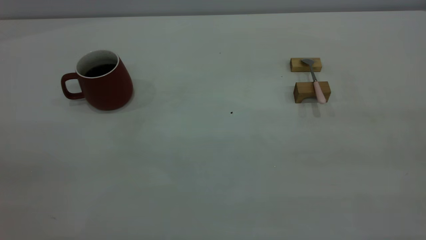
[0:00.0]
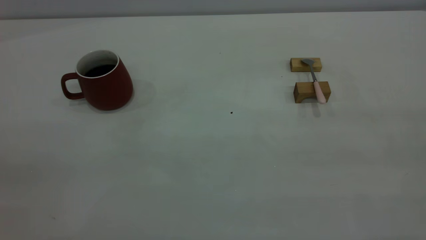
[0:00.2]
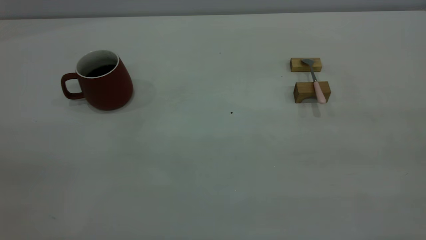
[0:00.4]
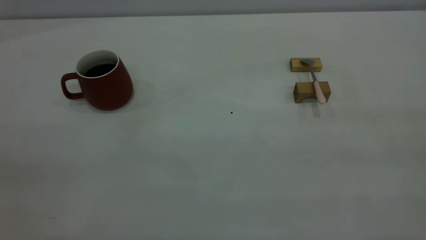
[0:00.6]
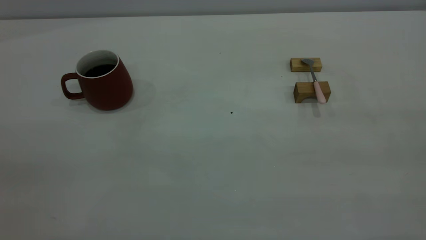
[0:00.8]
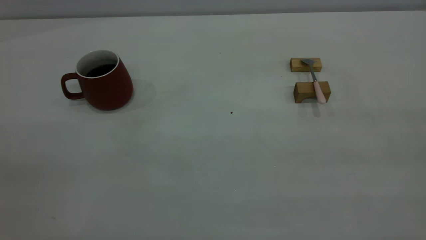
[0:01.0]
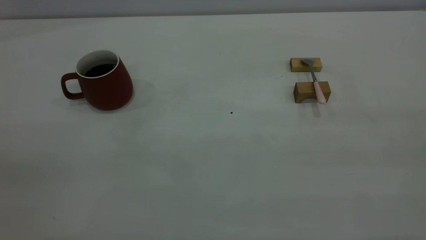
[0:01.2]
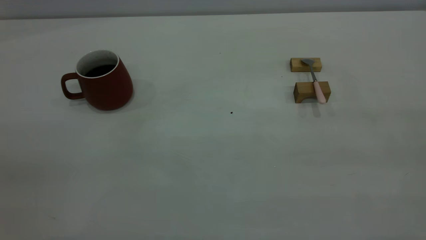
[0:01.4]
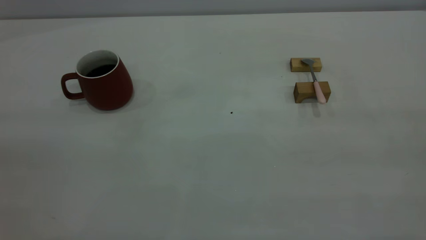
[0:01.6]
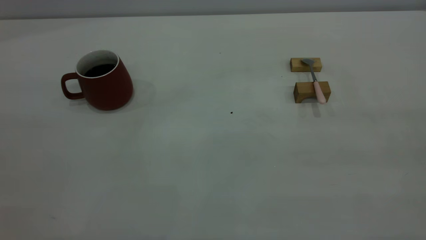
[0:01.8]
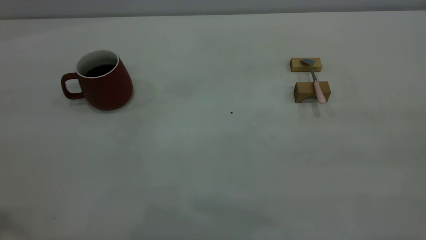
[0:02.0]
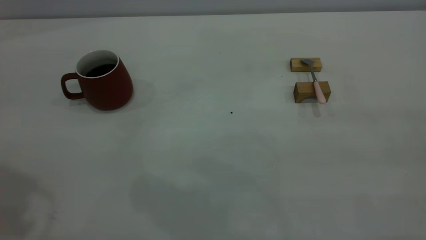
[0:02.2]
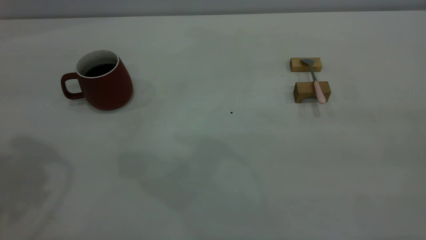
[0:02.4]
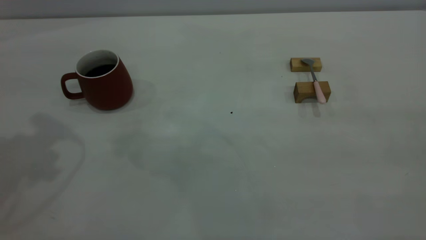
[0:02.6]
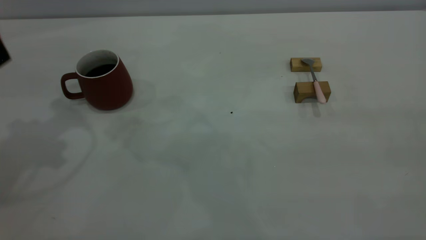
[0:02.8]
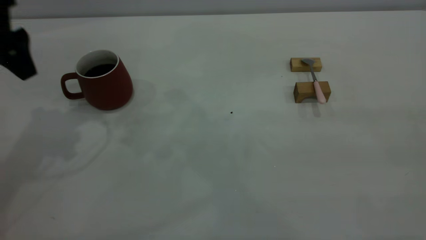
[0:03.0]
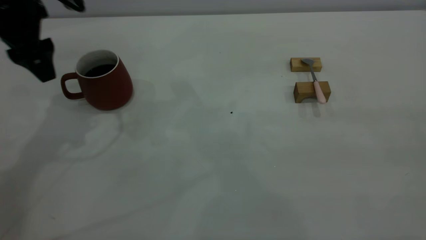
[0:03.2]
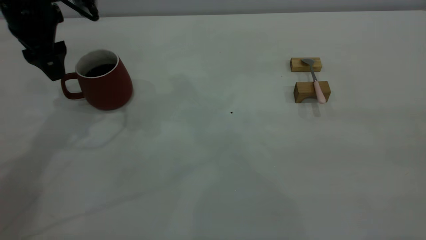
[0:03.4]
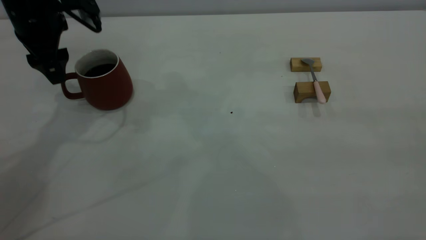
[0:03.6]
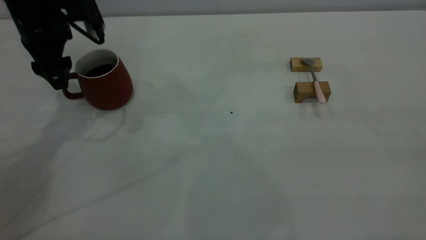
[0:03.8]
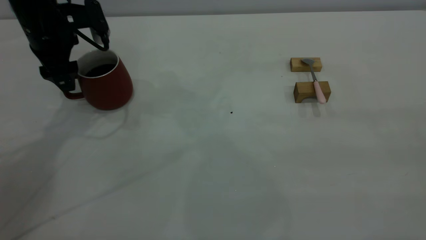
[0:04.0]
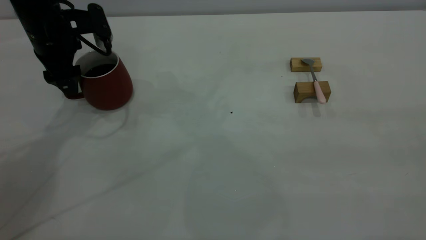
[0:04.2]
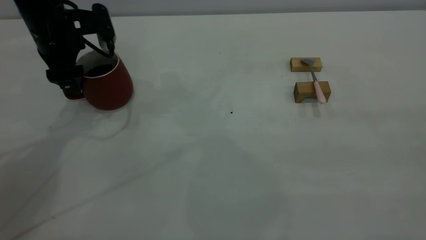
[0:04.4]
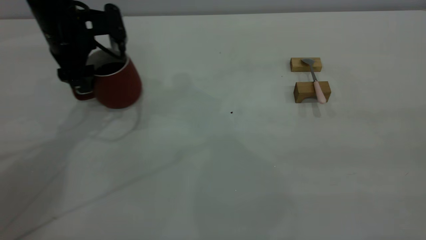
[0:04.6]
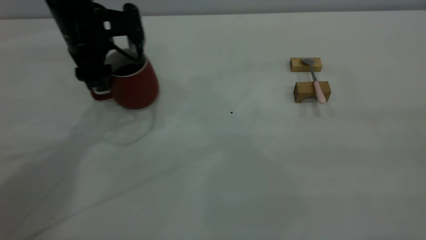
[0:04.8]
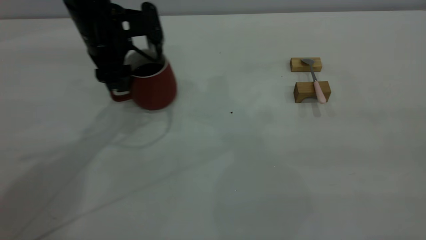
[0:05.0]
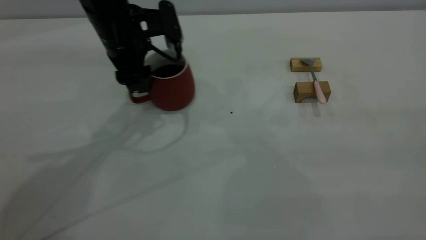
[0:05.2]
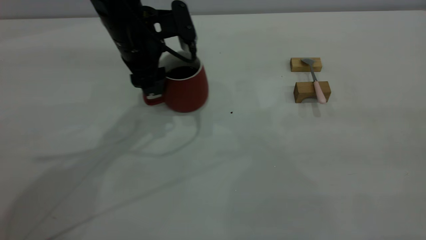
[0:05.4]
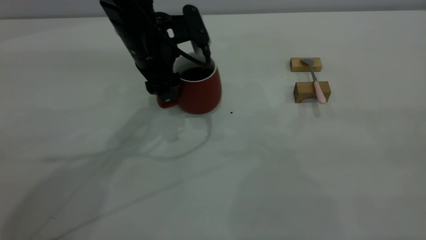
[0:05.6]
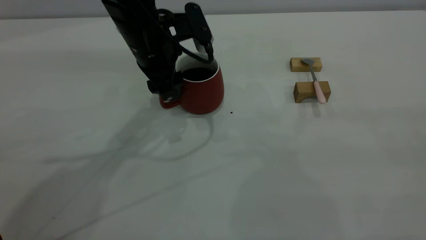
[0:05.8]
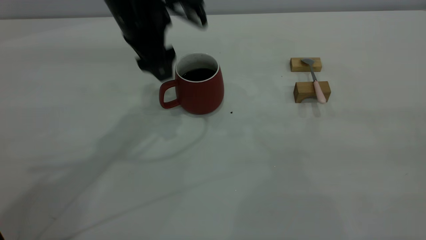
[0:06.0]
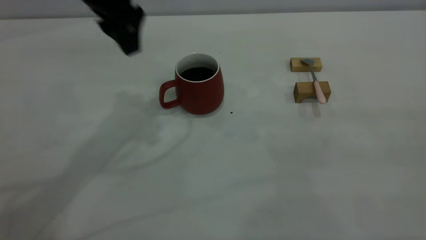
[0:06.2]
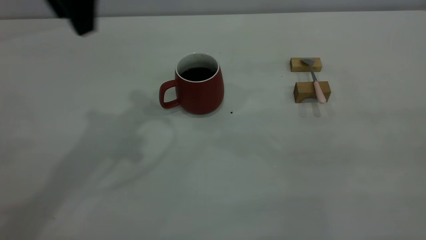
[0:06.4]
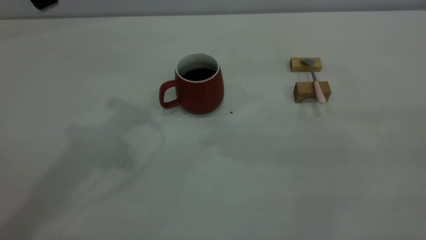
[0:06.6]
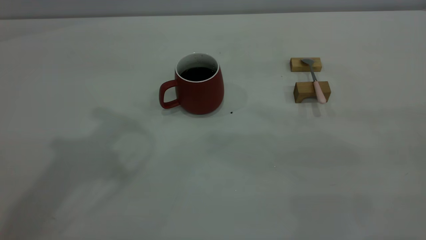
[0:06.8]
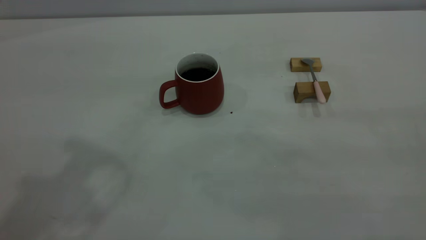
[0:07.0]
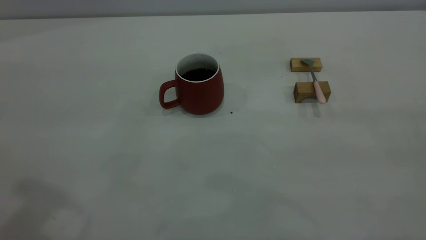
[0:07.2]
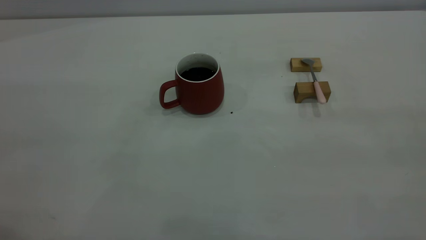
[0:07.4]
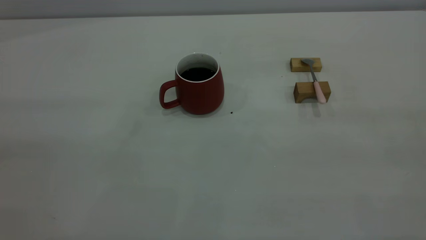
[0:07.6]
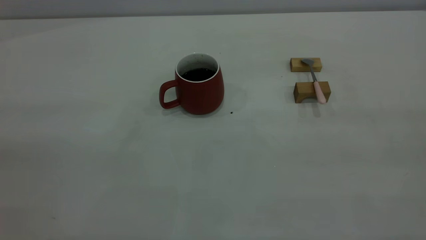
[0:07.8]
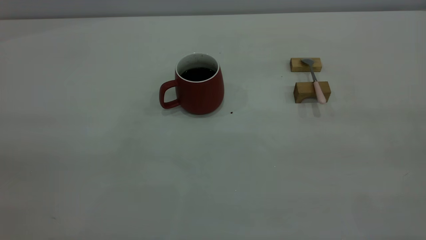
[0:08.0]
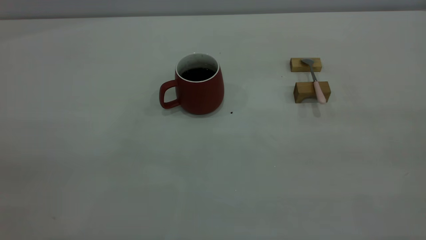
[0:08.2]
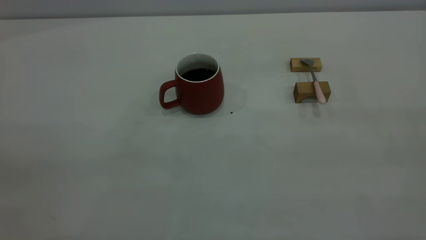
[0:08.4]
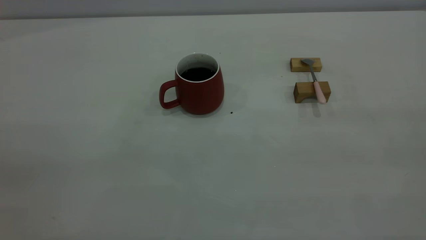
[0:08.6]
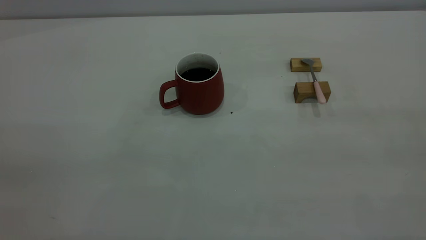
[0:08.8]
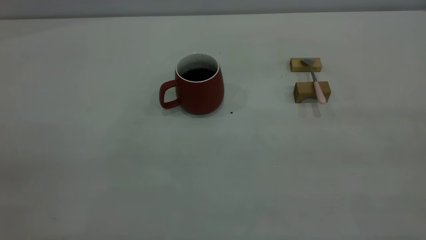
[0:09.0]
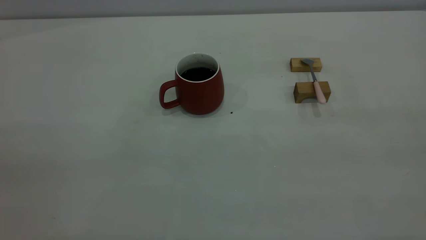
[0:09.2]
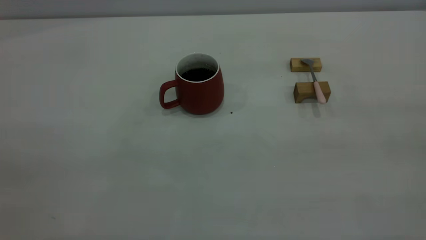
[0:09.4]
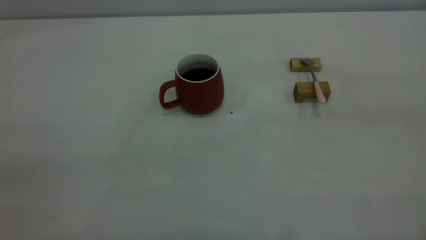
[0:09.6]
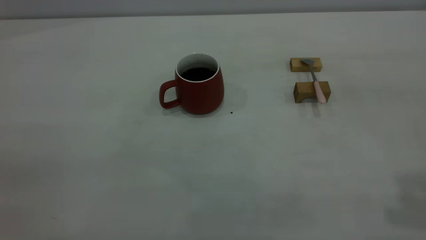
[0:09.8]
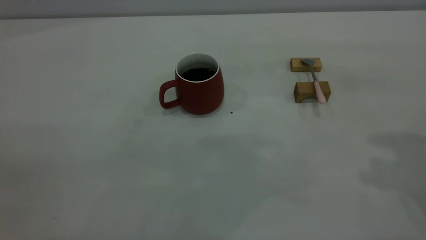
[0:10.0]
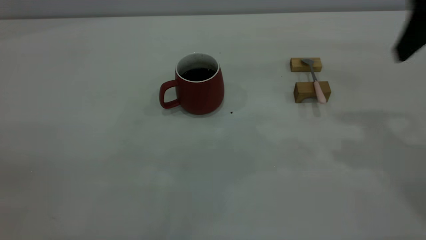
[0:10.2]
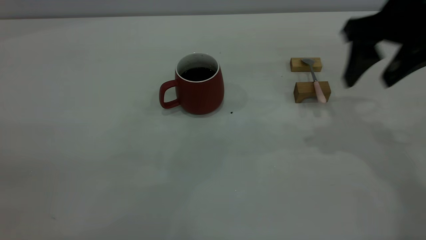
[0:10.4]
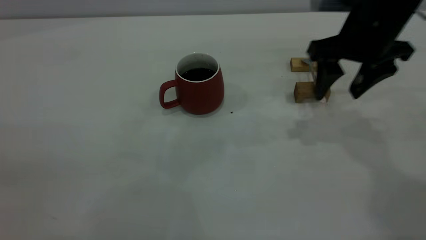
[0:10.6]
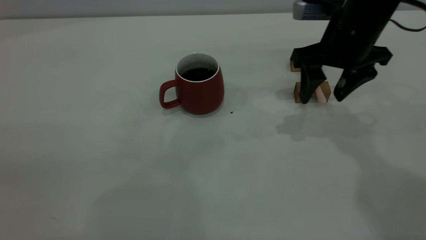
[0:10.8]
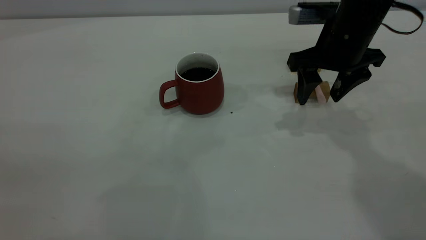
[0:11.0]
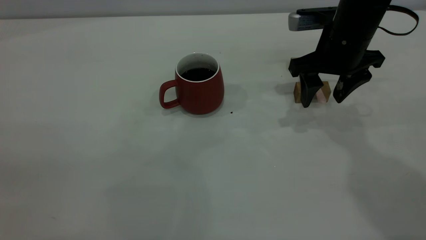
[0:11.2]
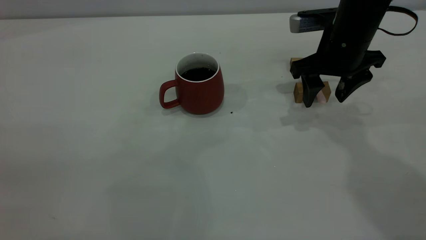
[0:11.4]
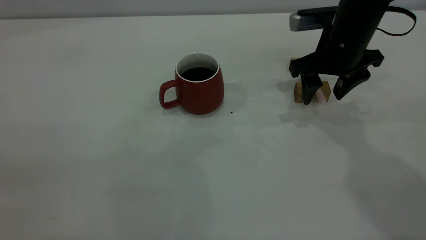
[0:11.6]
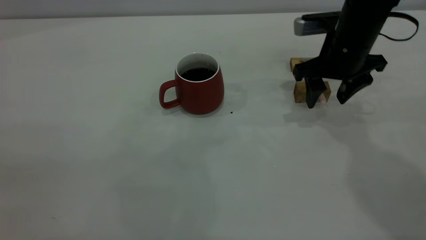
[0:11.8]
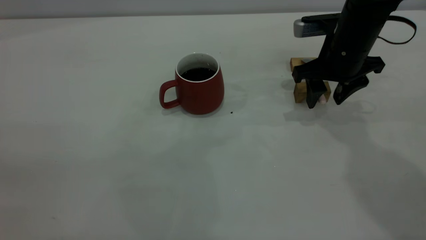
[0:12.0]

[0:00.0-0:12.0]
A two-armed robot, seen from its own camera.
Step, 0:00.0 to 0:06.0: Move the cup with coffee to the center of view.
0:01.6 to 0:03.0: The left gripper shifts about 35 cm forward and downward, and opens its fingers.
0:03.0 to 0:04.4: The left gripper is displaced downward and forward by approximately 10 cm.
0:04.4 to 0:06.0: The left gripper shifts some 15 cm to the right and upward.
0:06.0 to 0:07.6: The left gripper travels backward, to the left and upward by roughly 40 cm, and closes up.
0:09.0 to 0:10.4: The right gripper is displaced forward and downward by roughly 35 cm, and opens its fingers.
0:10.4 to 0:12.0: The right gripper heads downward and forward, covering roughly 10 cm.

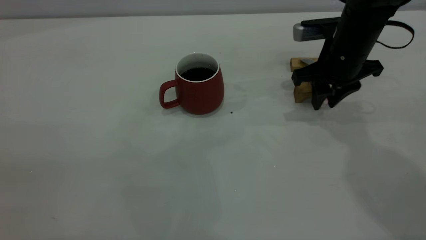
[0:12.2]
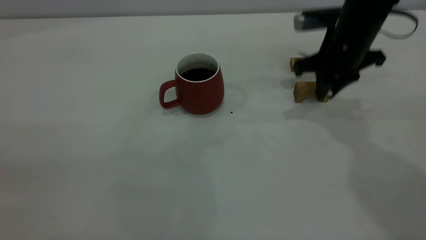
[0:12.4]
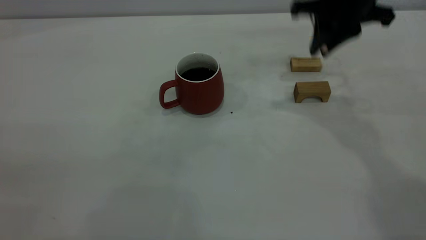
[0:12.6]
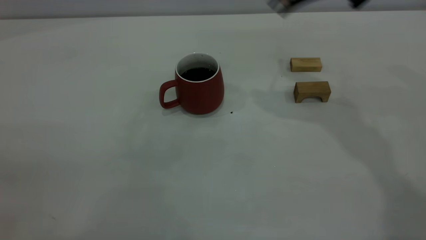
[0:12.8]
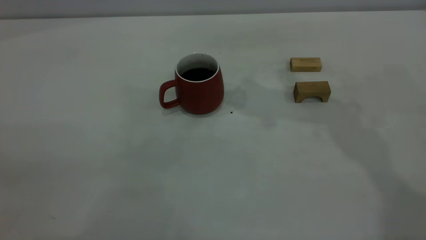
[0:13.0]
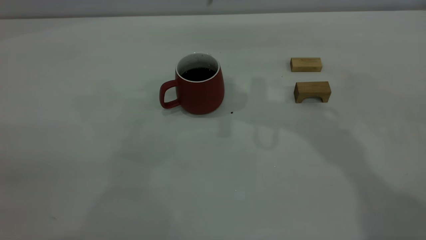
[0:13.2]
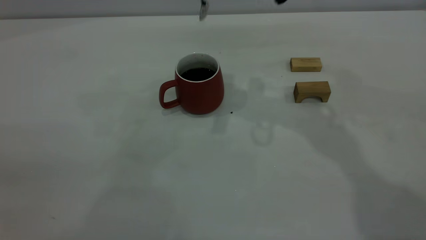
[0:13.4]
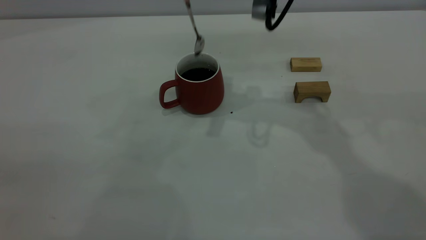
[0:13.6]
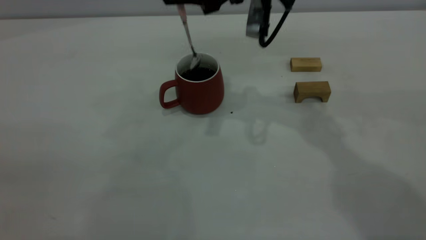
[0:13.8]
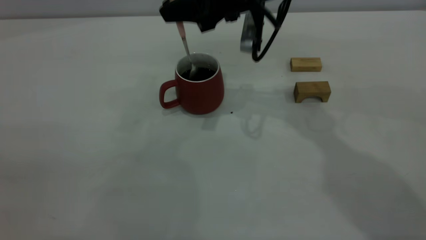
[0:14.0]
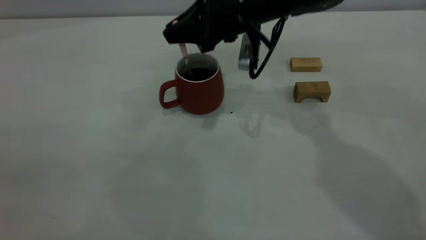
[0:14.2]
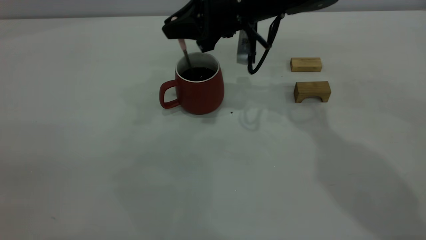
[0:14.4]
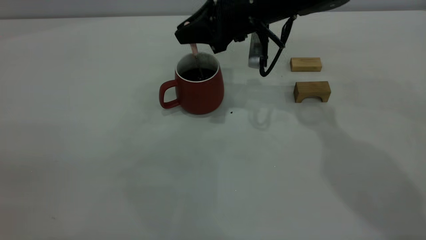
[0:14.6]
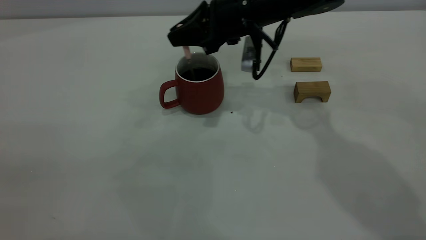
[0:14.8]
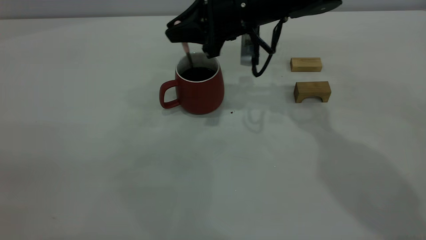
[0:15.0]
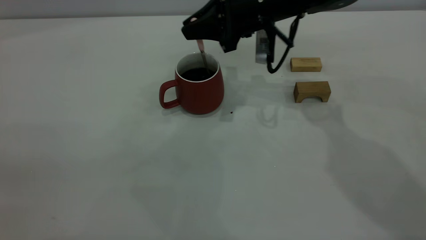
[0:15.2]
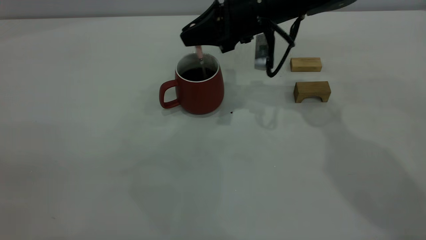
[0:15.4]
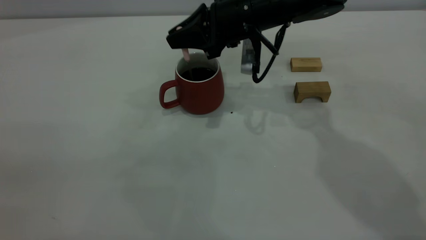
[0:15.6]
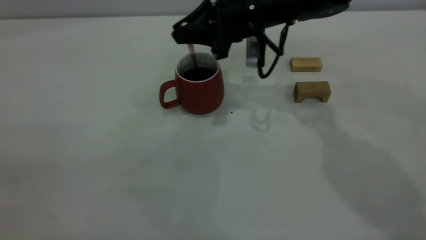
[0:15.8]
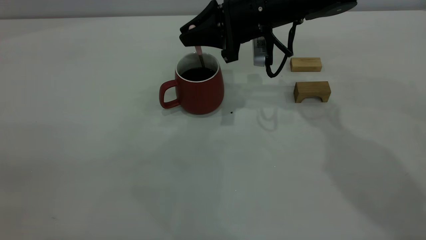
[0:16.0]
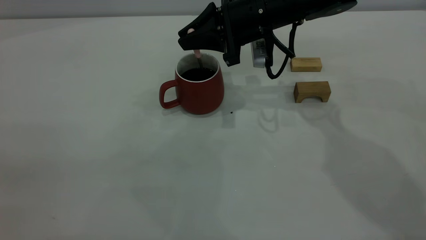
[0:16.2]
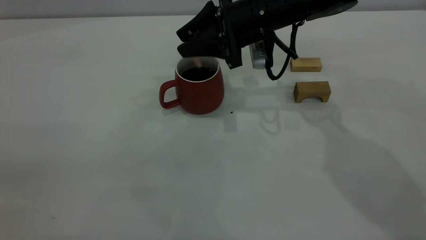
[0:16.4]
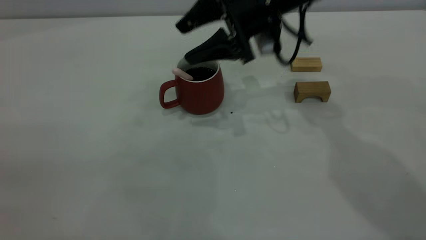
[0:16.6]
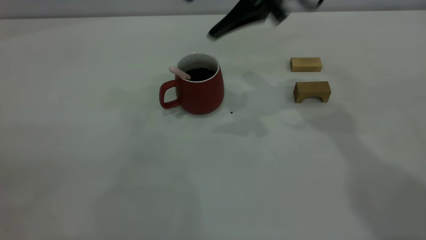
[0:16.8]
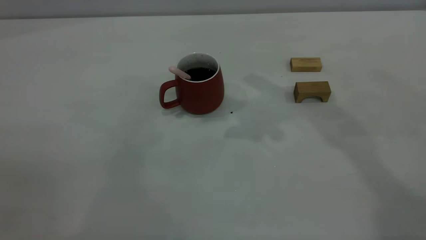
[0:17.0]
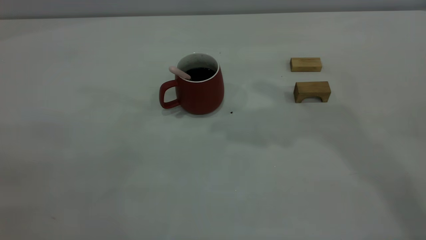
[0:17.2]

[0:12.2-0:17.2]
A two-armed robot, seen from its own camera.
Step, 0:12.6 to 0:16.6: Stir the coffee in the cup.
0:12.2 to 0:13.8: The right gripper travels to the left and upward by approximately 15 cm.
0:13.8 to 0:15.6: The right gripper travels downward by about 5 cm.
0:15.6 to 0:17.2: The right gripper shifts approximately 30 cm upward, and opens up.
